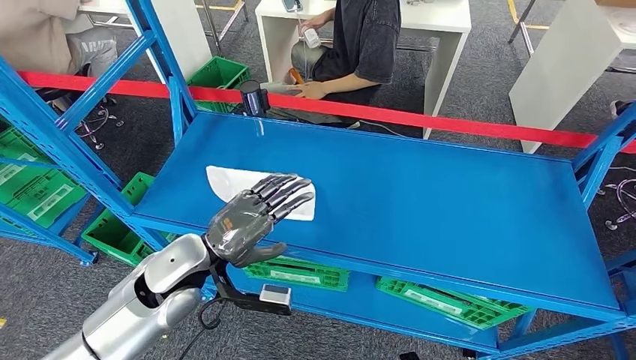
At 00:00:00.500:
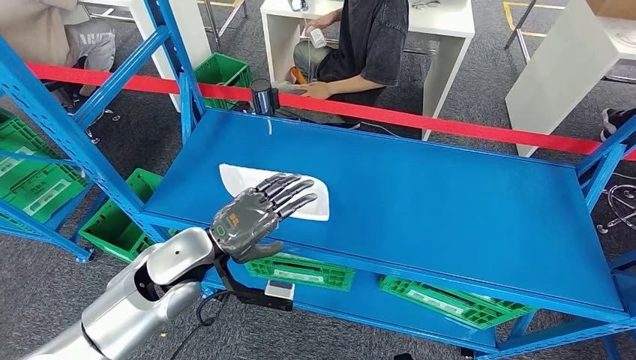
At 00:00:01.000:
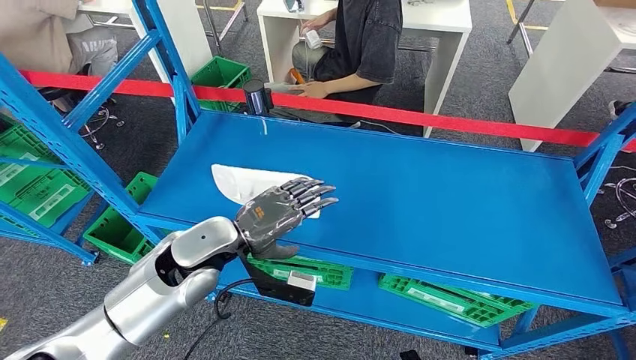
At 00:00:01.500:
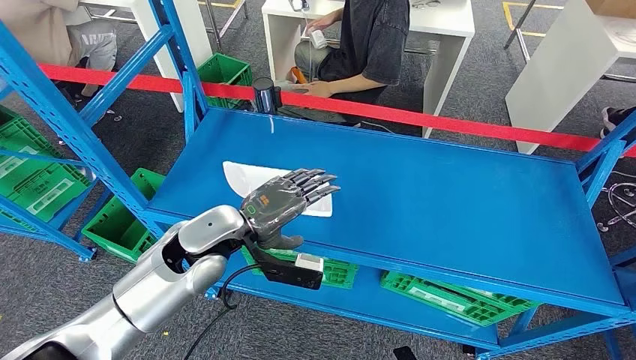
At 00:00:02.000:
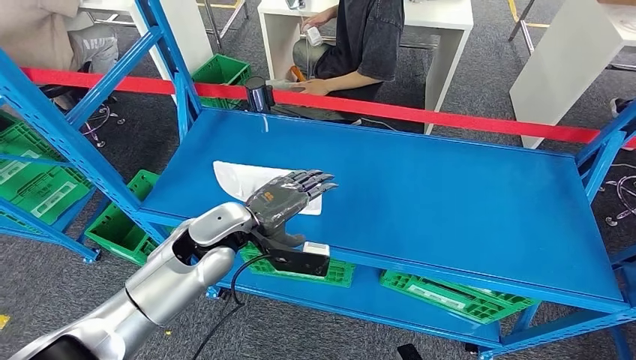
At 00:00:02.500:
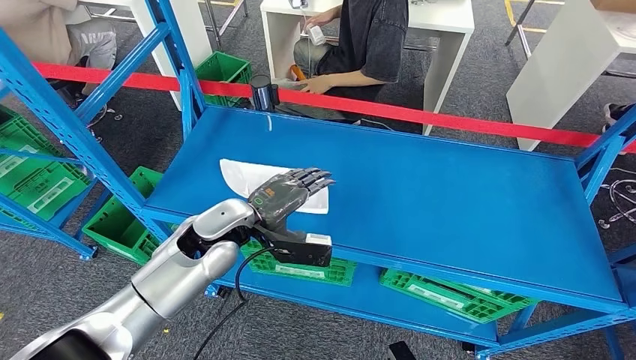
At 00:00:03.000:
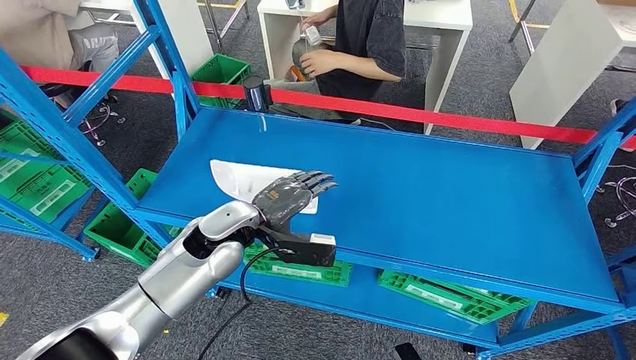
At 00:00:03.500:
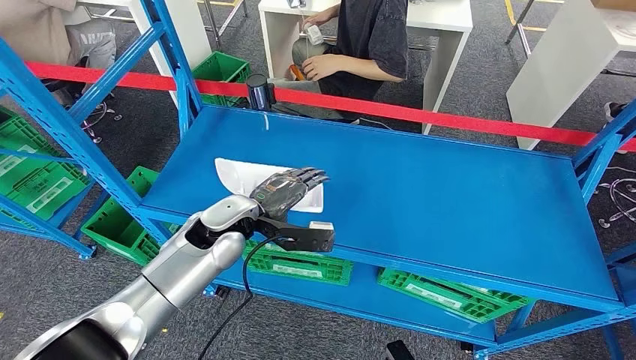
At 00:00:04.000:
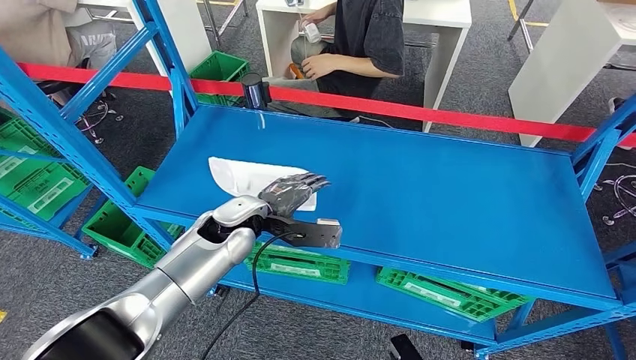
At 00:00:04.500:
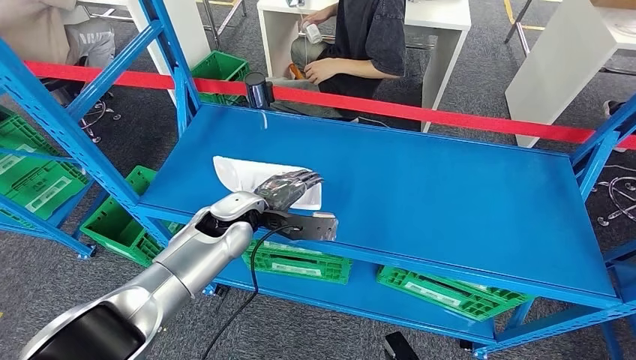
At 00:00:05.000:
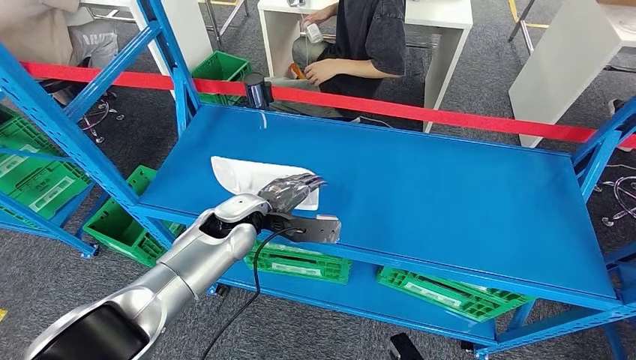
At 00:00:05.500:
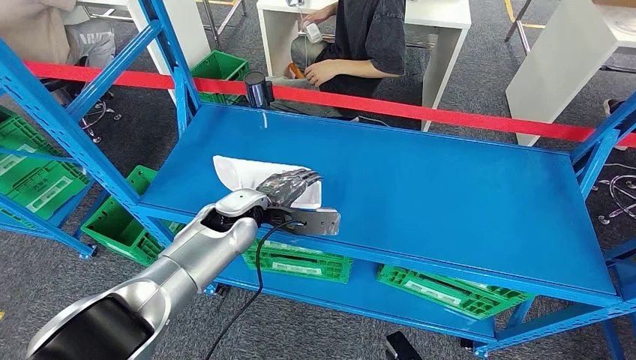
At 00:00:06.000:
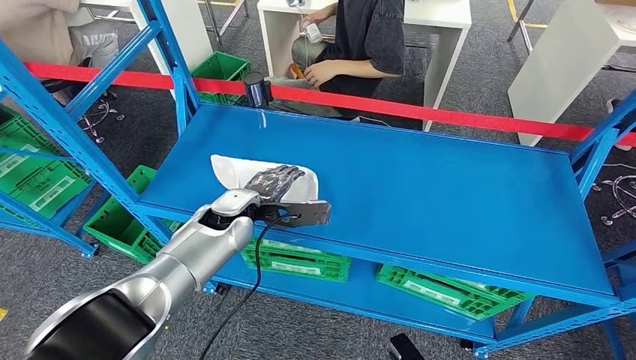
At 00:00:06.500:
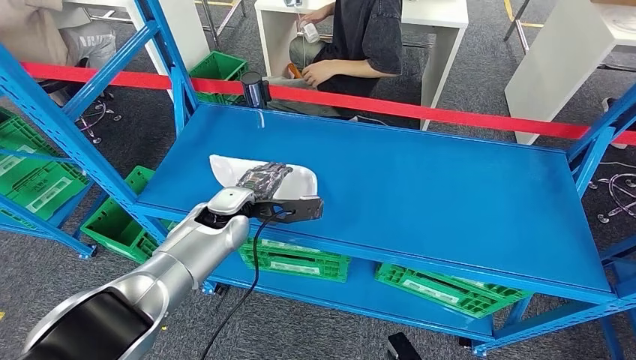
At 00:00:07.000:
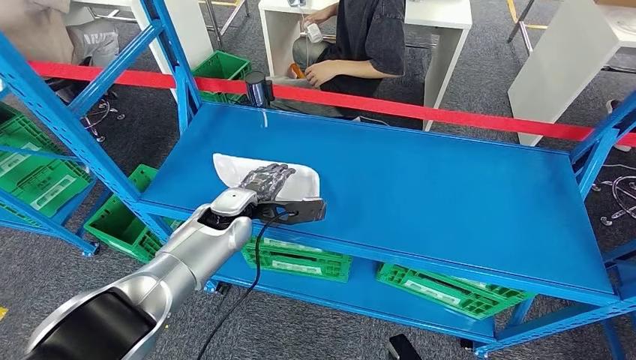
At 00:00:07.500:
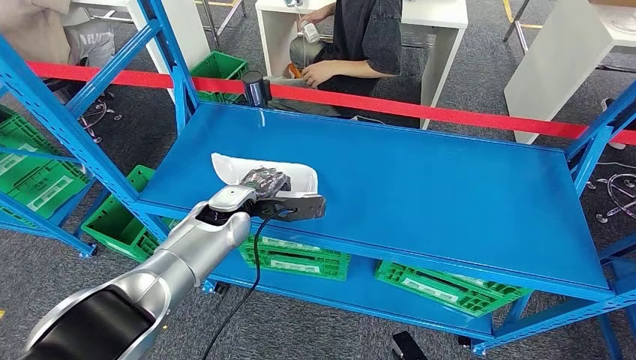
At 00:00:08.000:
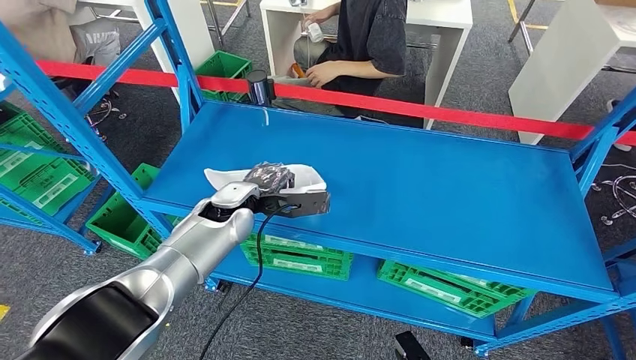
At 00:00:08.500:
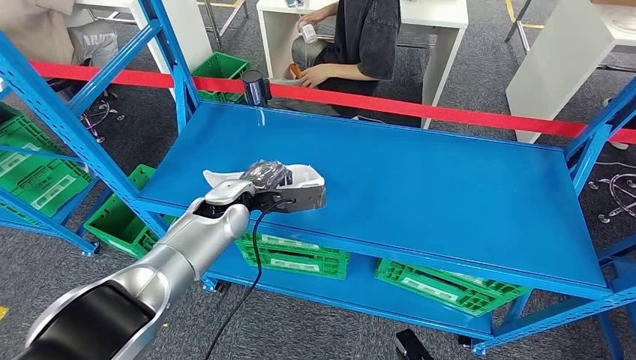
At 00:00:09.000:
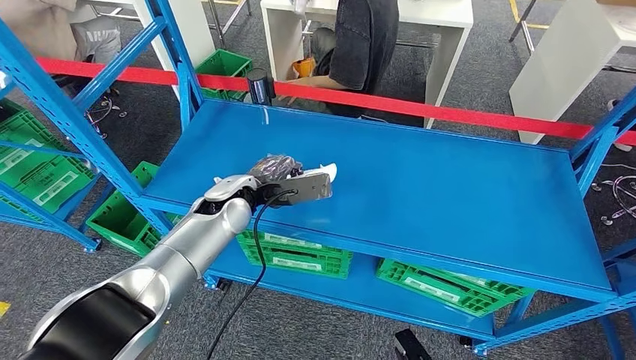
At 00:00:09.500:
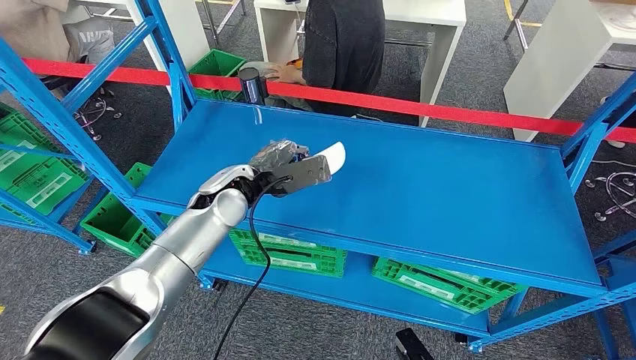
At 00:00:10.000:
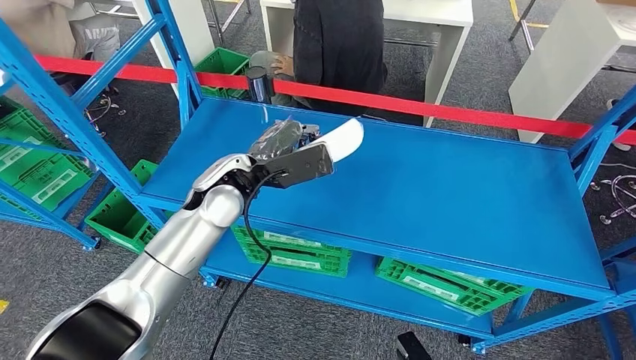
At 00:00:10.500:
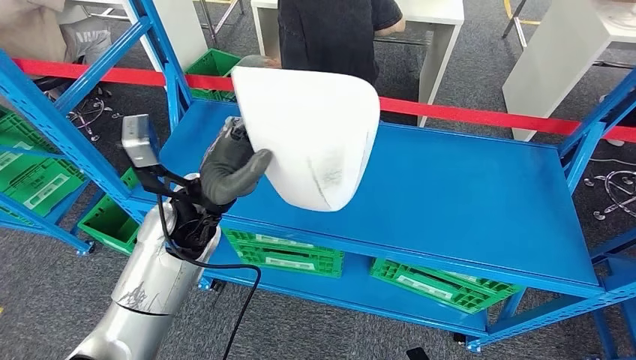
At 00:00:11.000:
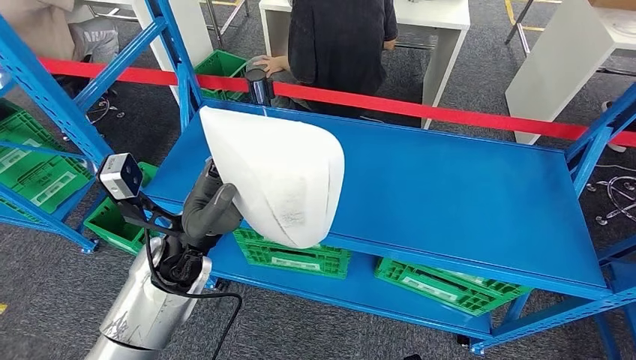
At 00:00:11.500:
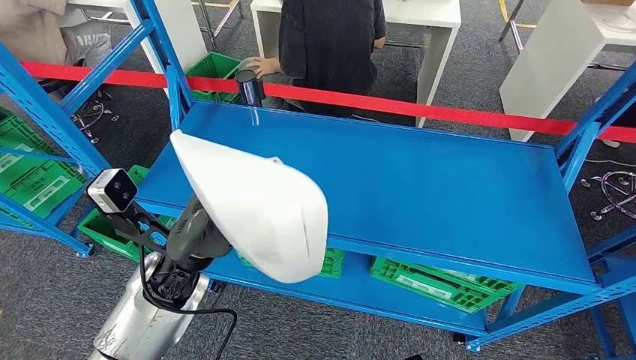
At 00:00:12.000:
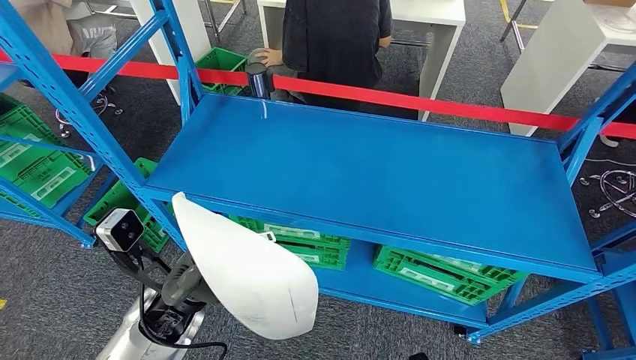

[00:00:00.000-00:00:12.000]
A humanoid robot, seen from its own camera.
Step, 00:00:00.000 to 00:00:10.500: Take small components from the rack.
00:00:04.000 to 00:00:06.000: The hands stay close to where they were, moving slightly.
00:00:06.000 to 00:00:08.000: There are only small adjustments of the hands.

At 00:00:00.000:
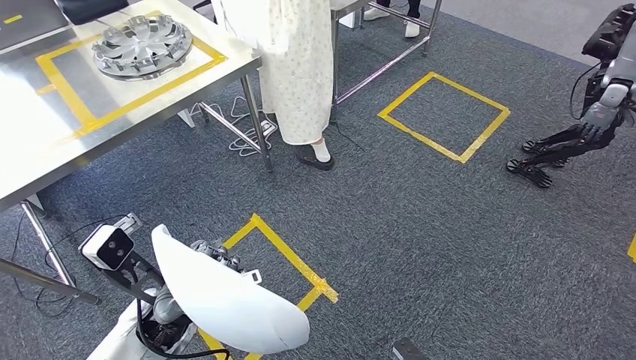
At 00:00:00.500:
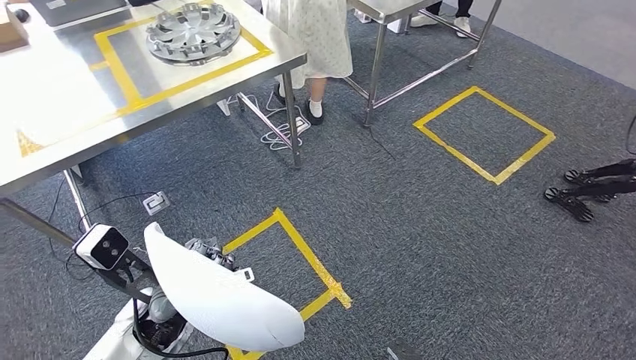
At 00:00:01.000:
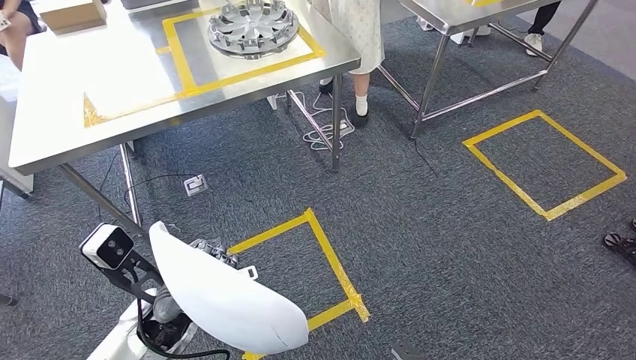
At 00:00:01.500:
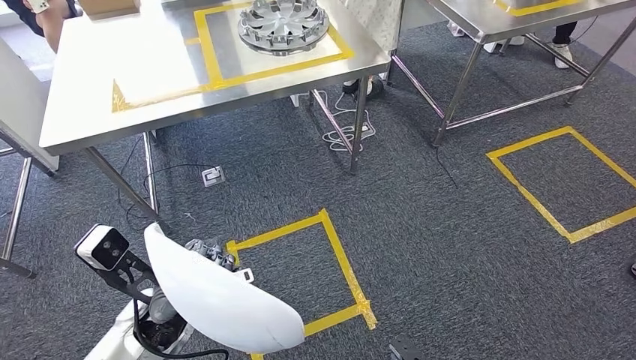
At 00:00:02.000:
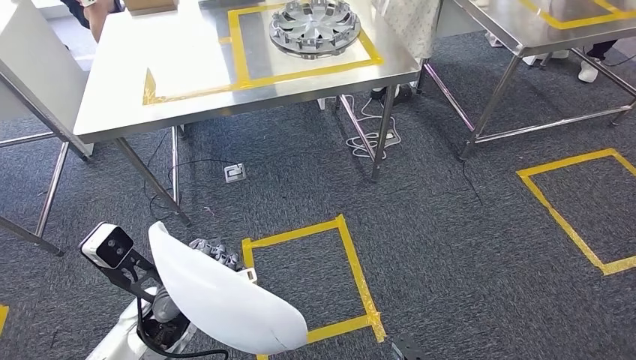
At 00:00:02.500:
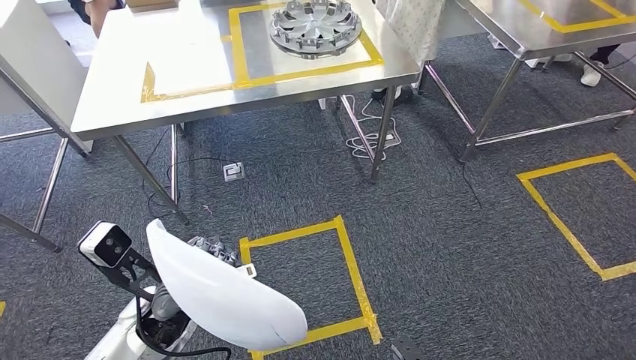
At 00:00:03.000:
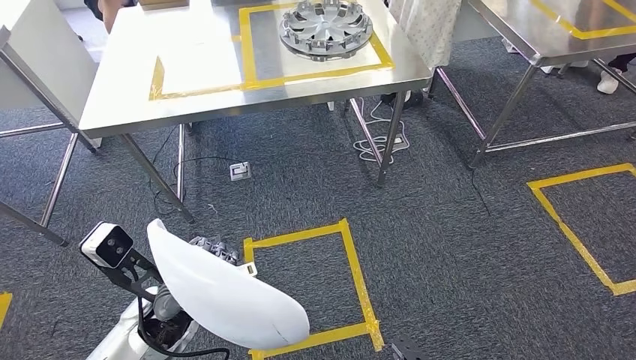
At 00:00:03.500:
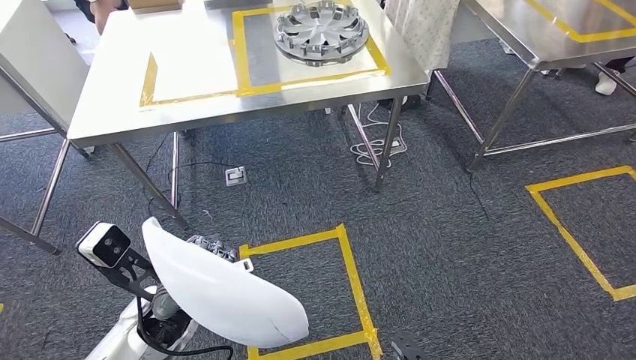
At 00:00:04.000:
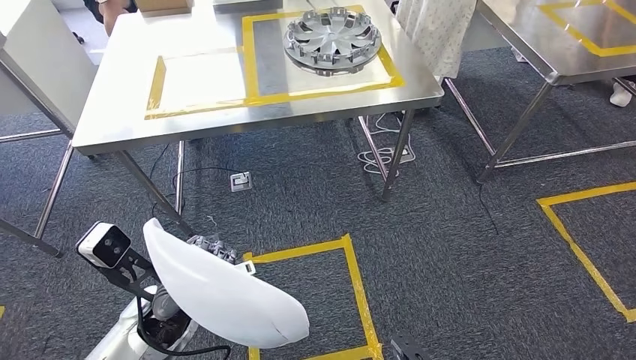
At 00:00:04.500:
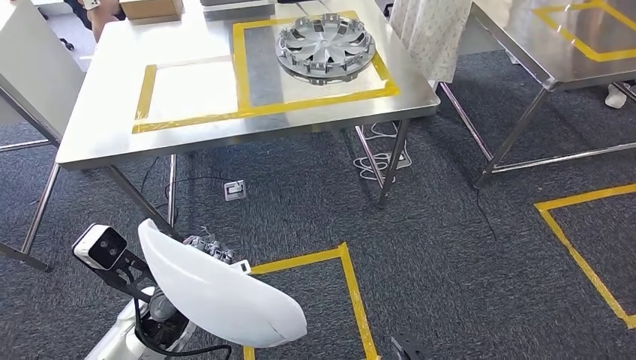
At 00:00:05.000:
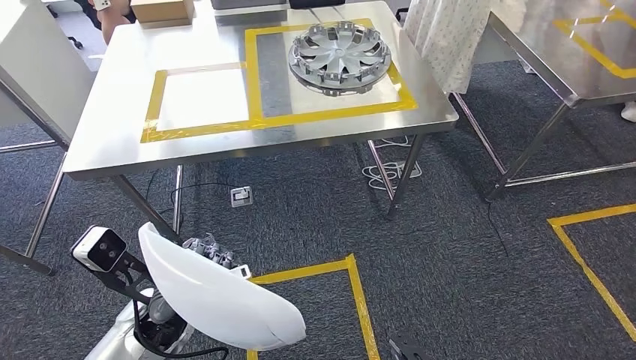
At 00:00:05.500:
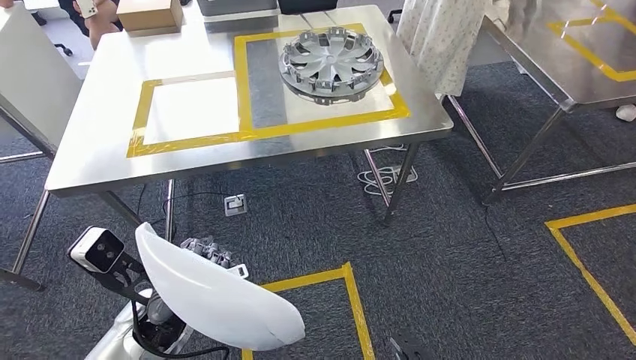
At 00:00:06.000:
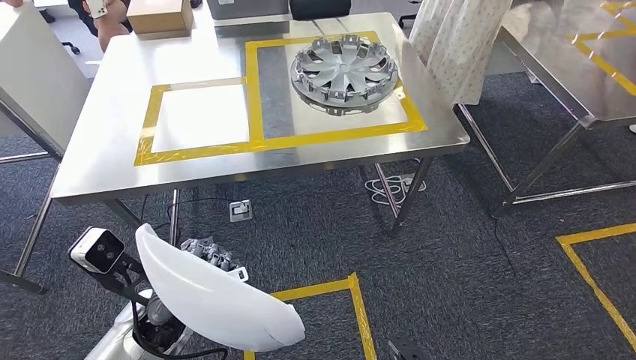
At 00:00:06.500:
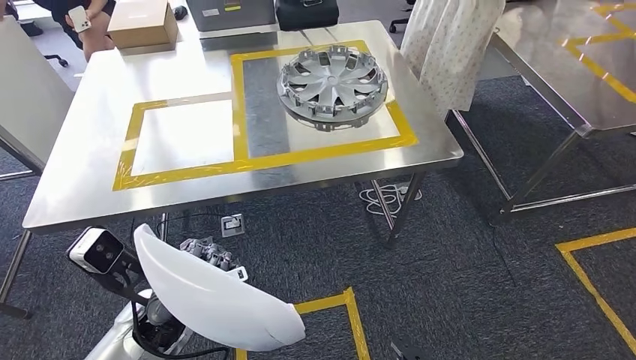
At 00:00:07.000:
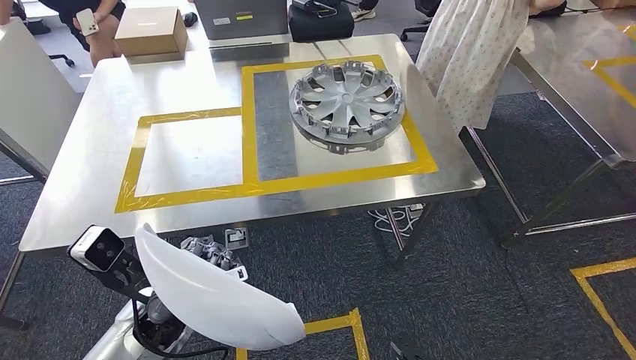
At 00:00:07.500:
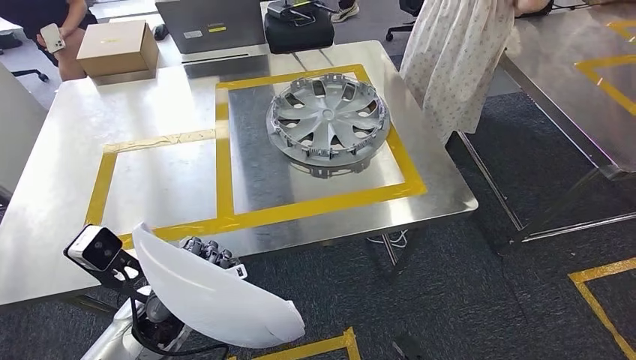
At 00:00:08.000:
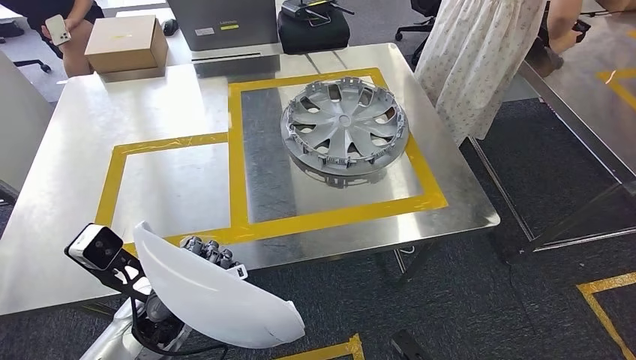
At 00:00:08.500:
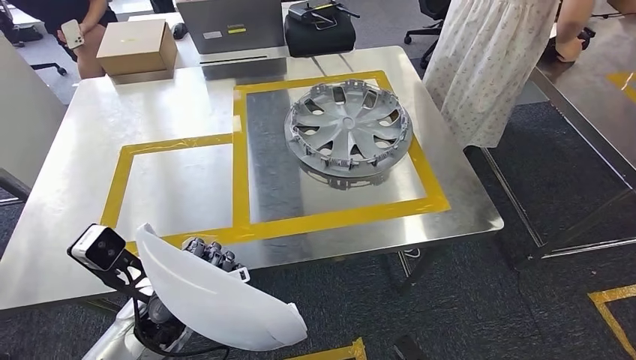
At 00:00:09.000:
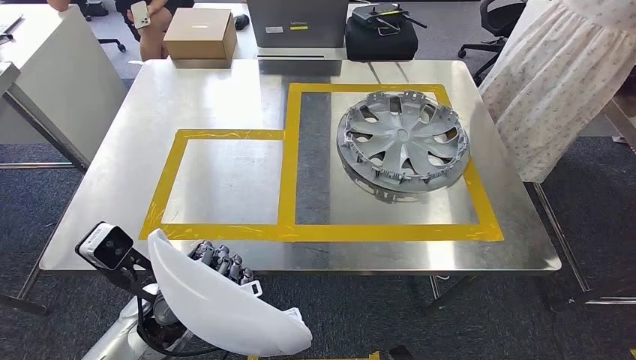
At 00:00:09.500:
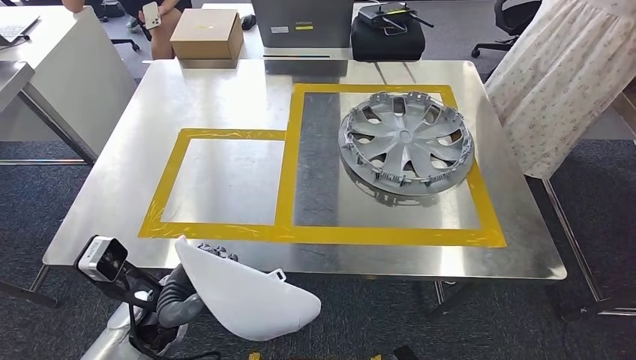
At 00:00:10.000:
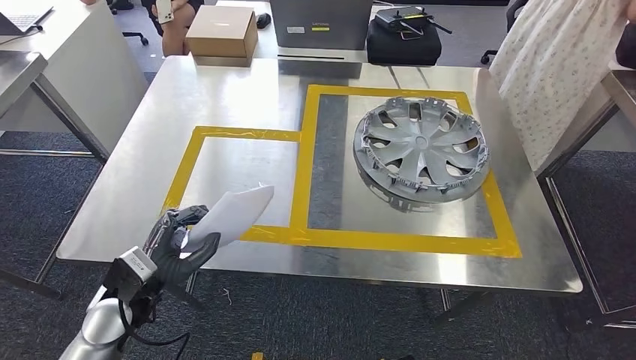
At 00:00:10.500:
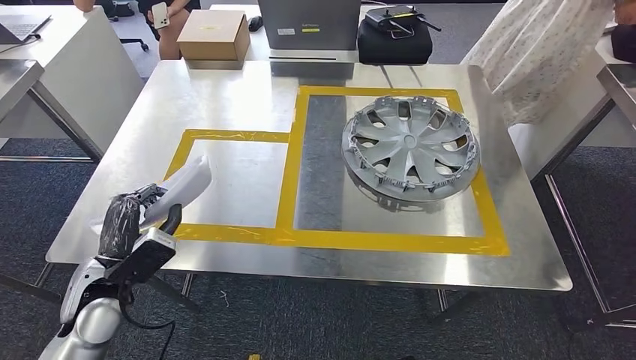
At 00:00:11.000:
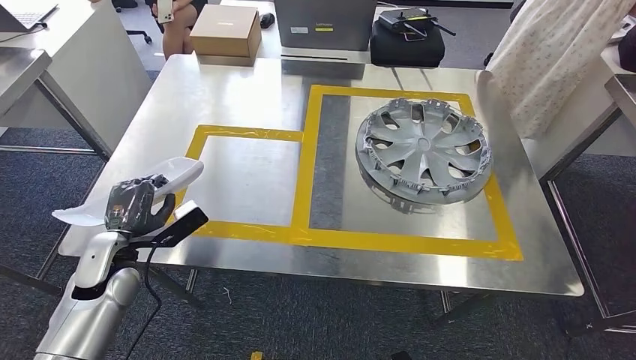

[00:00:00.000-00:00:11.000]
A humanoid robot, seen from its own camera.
Step, 00:00:00.000 to 00:00:07.500: Move the small parts to the workbench.
